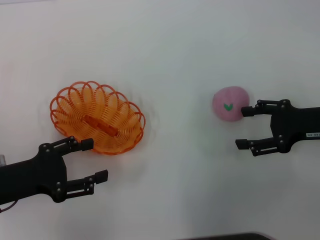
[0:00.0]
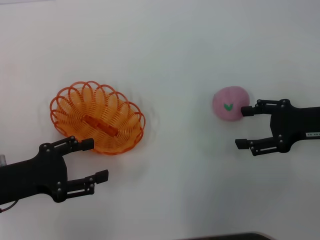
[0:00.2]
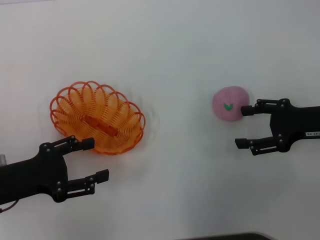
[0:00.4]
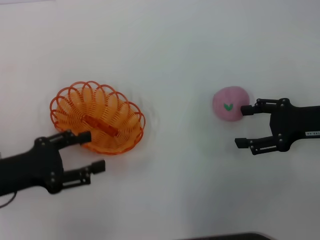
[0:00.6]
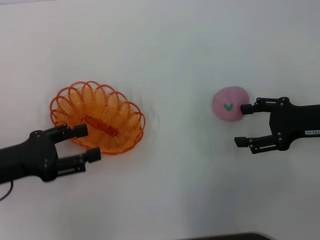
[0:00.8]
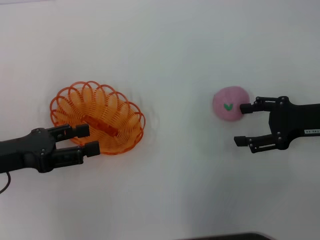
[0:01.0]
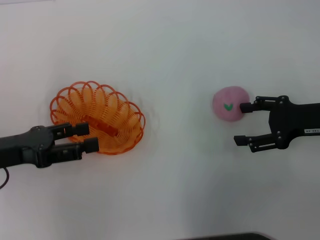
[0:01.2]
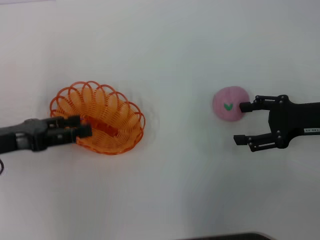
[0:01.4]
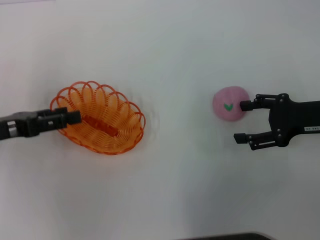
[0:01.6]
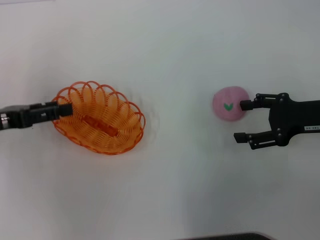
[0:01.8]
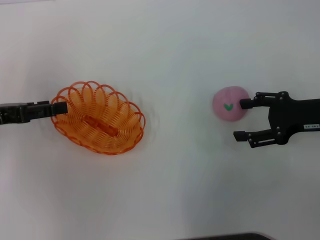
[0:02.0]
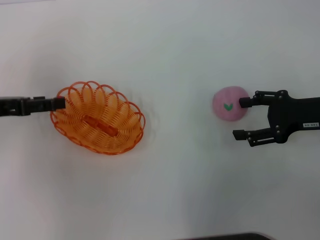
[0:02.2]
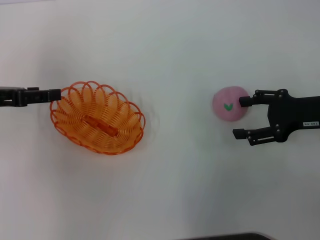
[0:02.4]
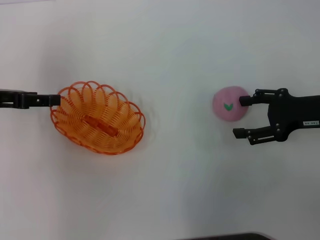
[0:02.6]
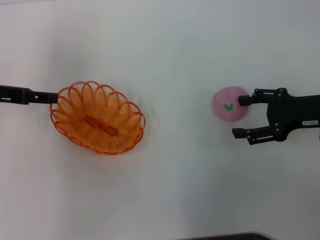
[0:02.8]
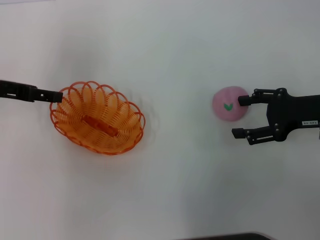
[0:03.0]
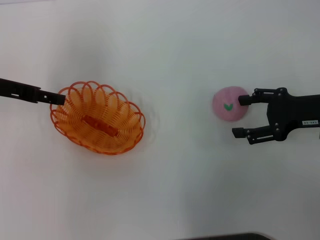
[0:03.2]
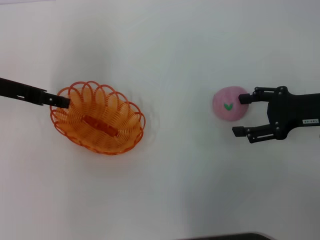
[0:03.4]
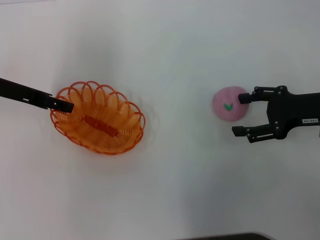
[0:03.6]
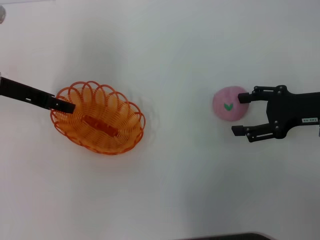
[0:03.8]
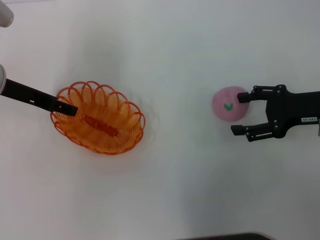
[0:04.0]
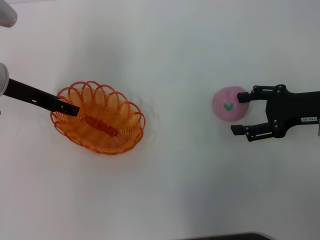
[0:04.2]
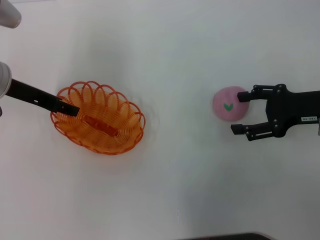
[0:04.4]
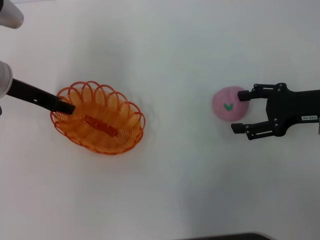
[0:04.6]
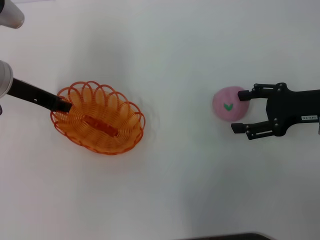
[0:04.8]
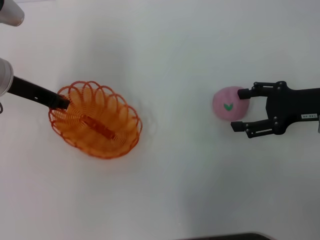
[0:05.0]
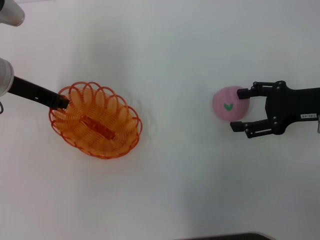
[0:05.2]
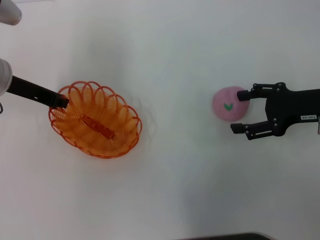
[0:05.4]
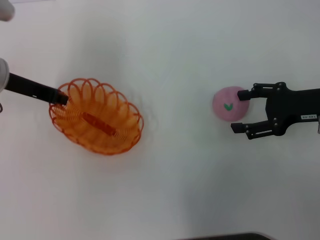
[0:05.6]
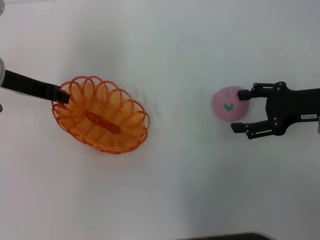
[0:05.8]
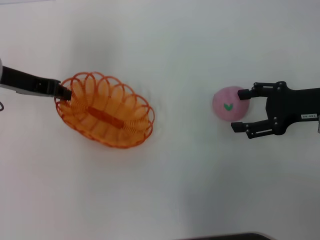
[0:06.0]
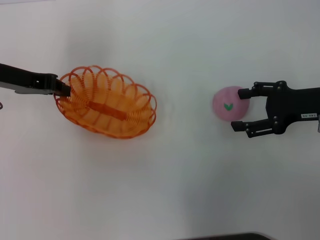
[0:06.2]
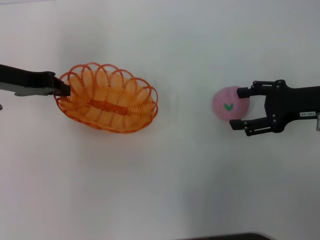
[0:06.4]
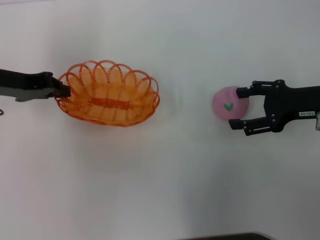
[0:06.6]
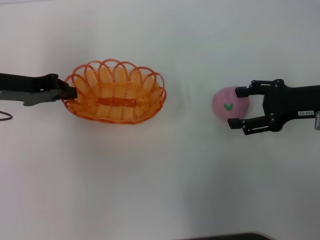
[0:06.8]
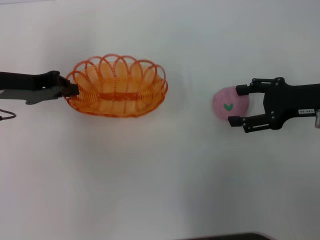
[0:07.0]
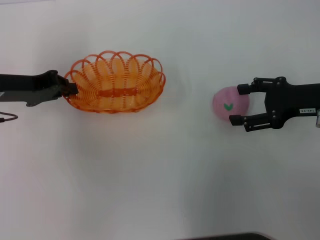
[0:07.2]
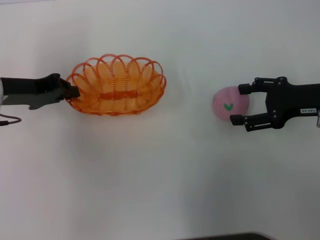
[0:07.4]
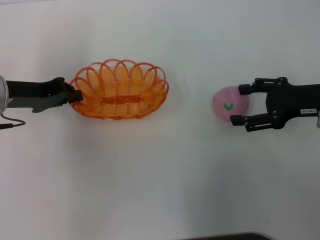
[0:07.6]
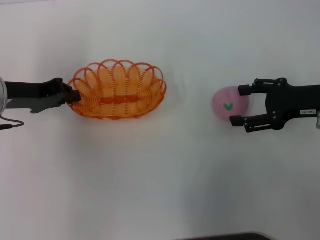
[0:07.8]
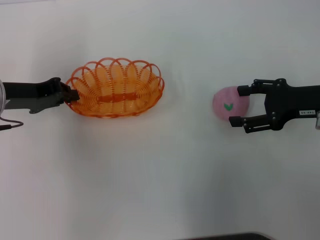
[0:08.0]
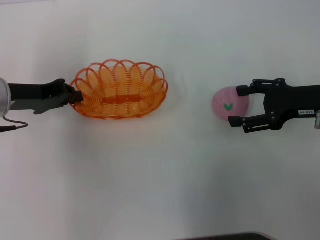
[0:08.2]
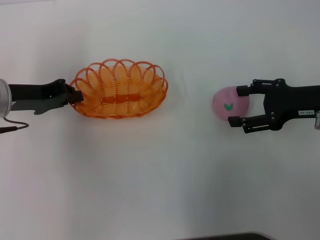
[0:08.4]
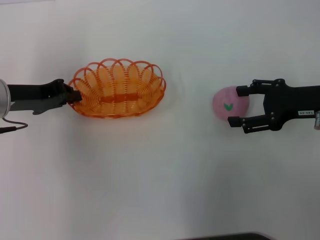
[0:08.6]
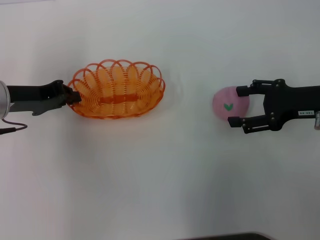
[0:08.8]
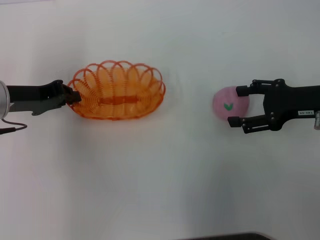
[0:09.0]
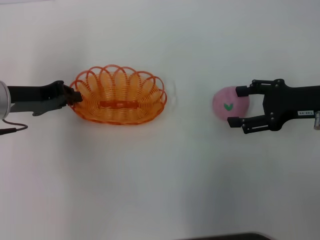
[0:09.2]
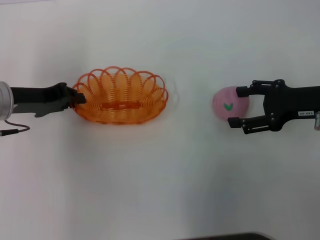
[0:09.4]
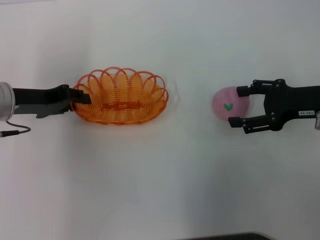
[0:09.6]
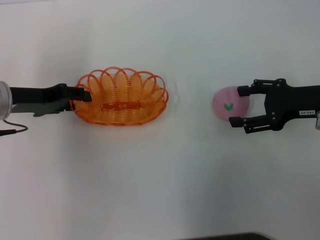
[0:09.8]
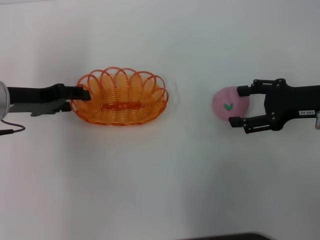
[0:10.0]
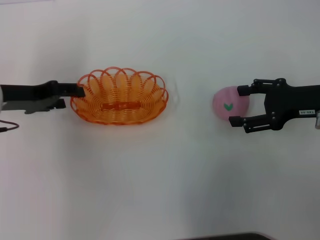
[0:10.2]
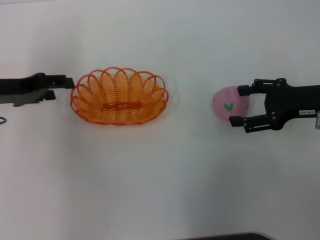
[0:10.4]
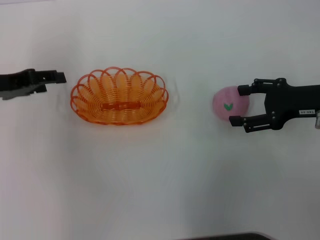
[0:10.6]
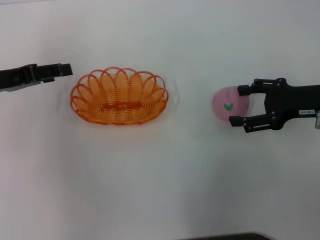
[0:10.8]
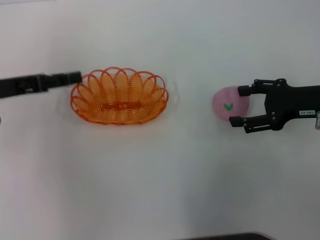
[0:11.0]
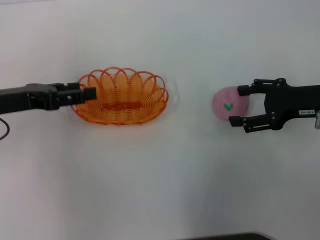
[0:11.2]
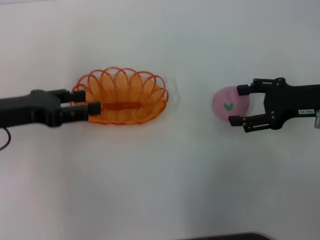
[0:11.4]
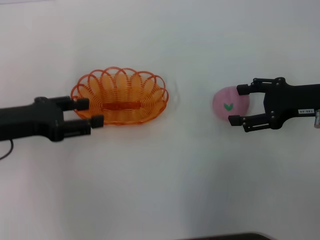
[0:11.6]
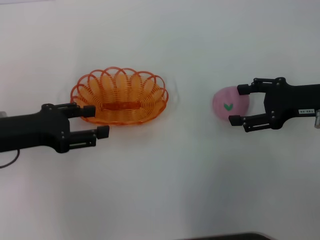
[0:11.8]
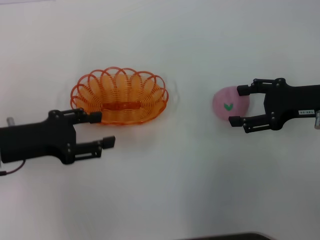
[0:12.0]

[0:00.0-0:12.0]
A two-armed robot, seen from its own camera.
Step, 0:00.0 to 0:06.4: Pick up the basket with the left gripper.
Step, 0:06.6 to 0:11.8: Place the basket in the center of view with the left gripper.
0:00.0 to 0:01.6: The left gripper heads forward, covering approximately 5 cm.
0:01.6 to 0:03.0: The left gripper shifts about 10 cm forward.
0:03.0 to 0:04.4: The left gripper moves about 5 cm.
0:04.4 to 0:06.0: The left gripper closes up.
0:07.6 to 0:09.0: The two grippers keep their place.
0:09.0 to 0:10.4: The left gripper opens.
0:10.4 to 0:12.0: The left gripper moves backward, some 5 cm.

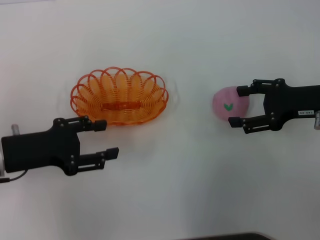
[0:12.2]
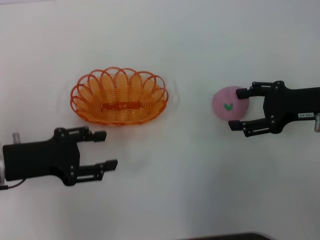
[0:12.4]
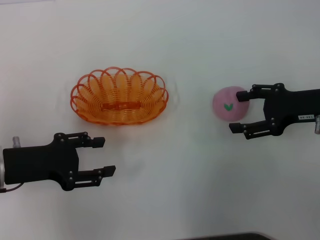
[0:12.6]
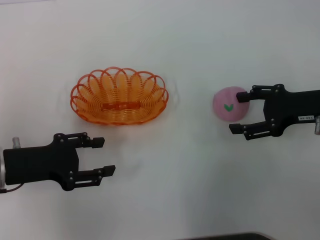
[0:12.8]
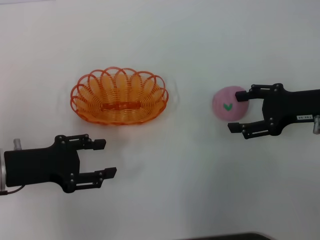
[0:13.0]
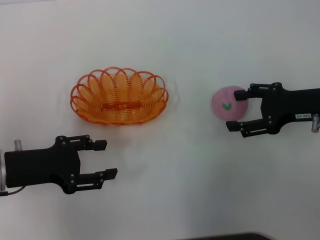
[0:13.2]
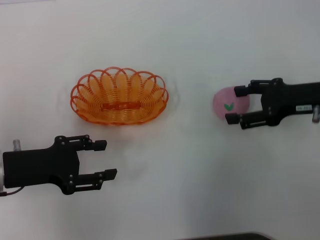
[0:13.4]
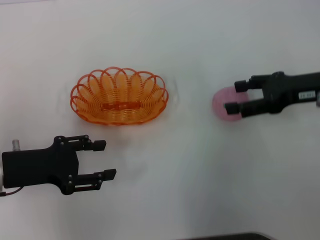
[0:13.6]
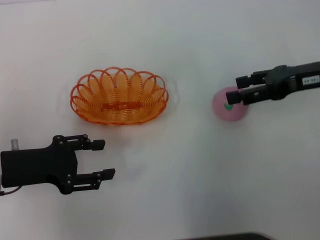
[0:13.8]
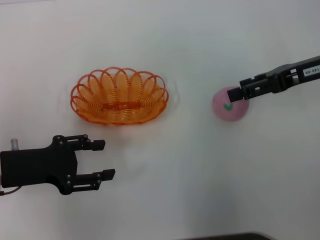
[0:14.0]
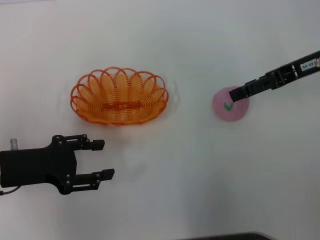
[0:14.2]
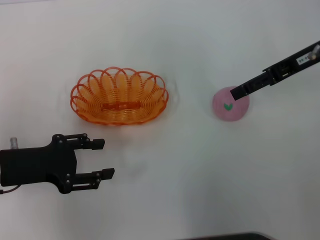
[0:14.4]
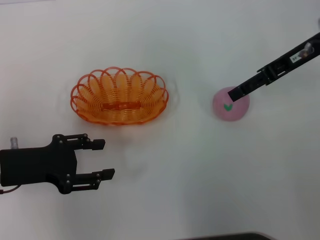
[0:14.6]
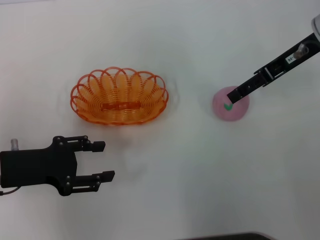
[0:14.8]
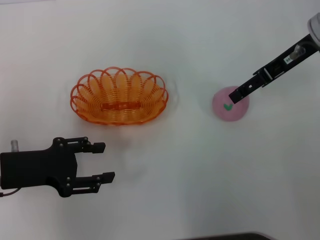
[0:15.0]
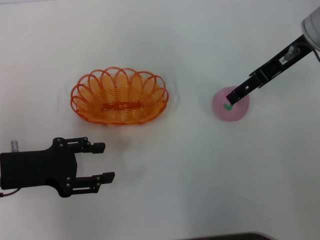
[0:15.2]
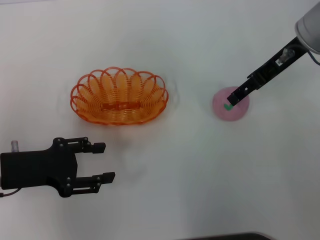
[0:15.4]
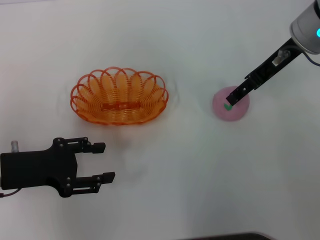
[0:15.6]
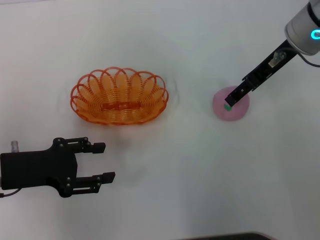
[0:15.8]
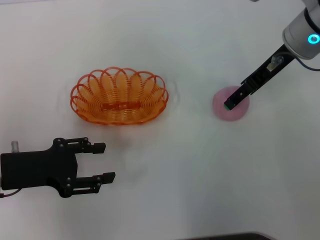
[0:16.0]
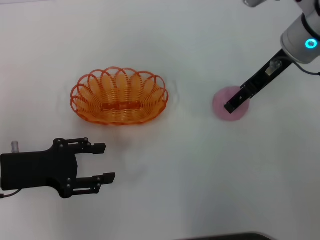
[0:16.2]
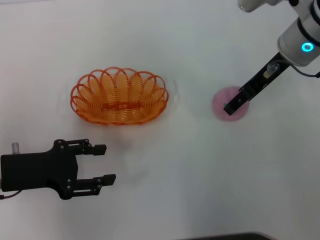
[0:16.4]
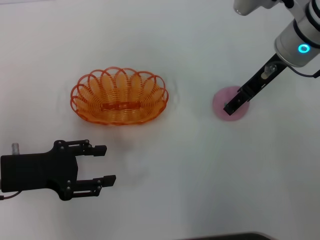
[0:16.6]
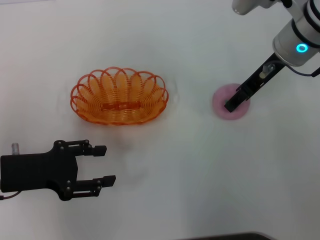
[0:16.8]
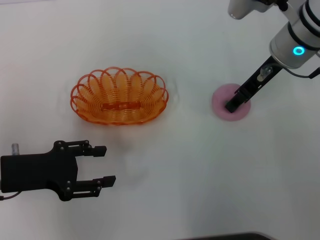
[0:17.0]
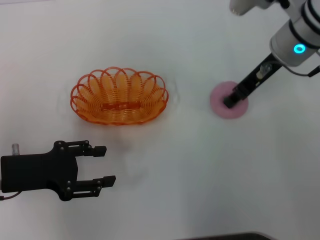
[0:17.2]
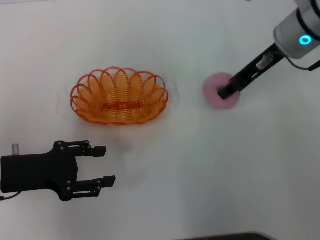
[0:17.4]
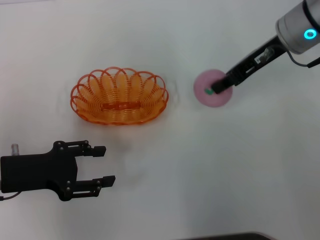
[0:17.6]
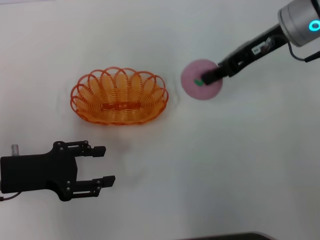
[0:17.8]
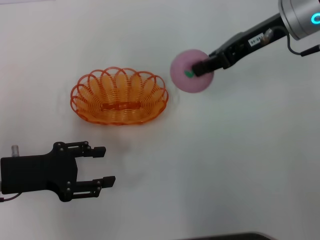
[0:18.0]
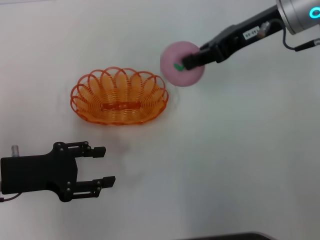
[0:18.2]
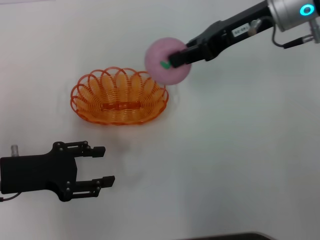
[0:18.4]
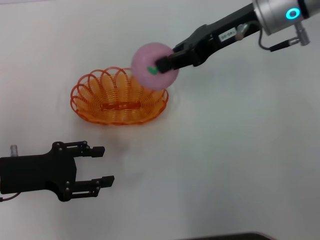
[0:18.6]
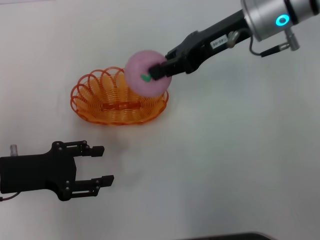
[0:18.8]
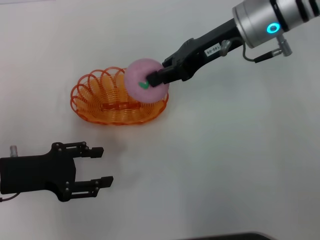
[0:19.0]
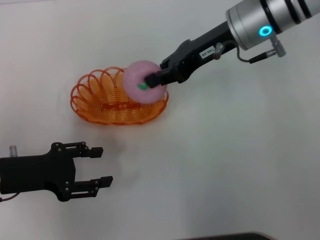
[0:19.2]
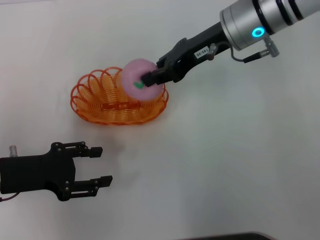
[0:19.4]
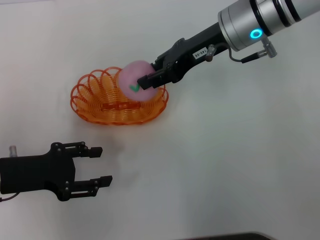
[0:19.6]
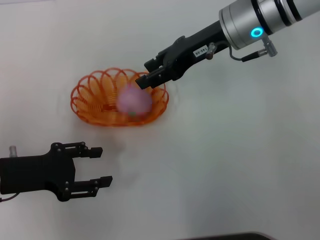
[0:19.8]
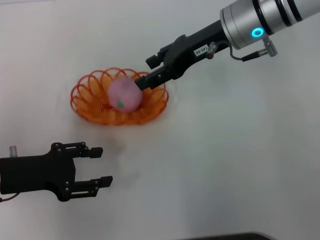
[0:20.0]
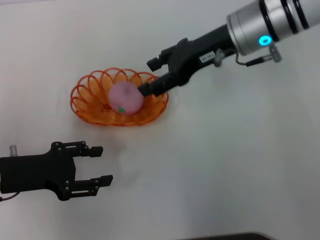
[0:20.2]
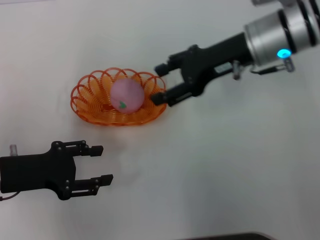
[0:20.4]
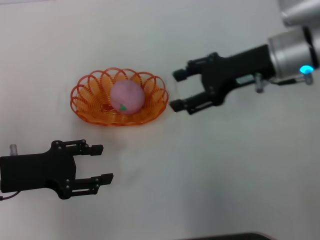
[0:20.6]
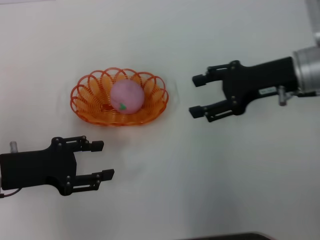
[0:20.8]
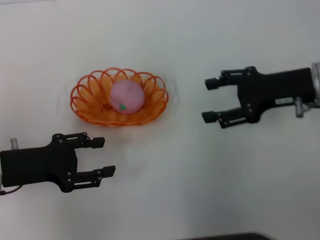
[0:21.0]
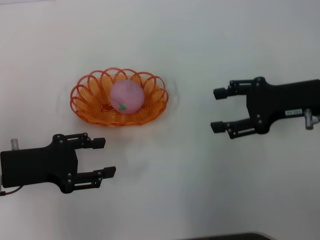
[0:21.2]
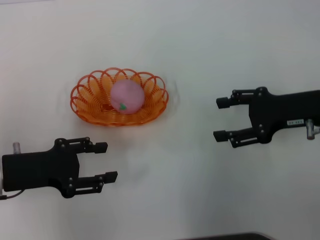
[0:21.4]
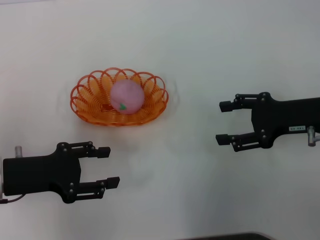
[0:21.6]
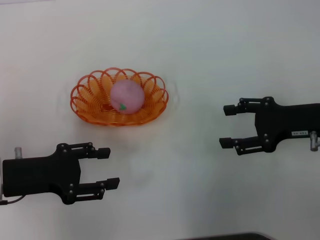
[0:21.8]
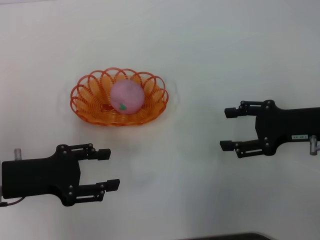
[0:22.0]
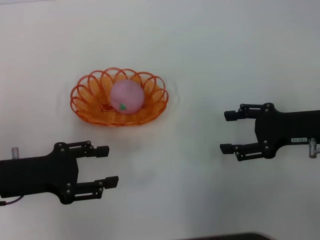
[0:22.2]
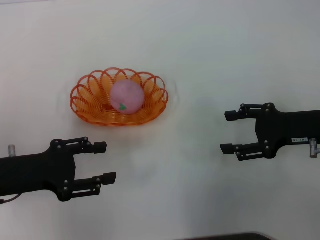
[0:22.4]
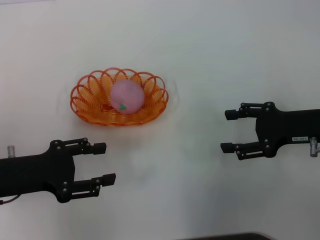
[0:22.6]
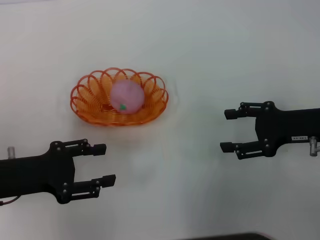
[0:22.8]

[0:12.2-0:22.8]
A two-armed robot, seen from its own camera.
Step, 0:12.2 to 0:18.0: Pick up the peach with the right gripper.
Step, 0:18.2 to 0:20.4: Place the peach into the basket with the right gripper.
0:12.2 to 0:13.8: The right gripper ends up roughly 5 cm from where it was.
0:13.8 to 0:15.2: The right gripper goes about 10 cm to the left and forward.
0:15.2 to 0:16.8: The grippers make only small movements.
0:16.8 to 0:18.2: The right gripper closes.
0:18.2 to 0:19.8: The right gripper goes some 5 cm to the left, and opens up.
0:19.8 to 0:21.2: The right gripper travels to the right, backward and downward by about 15 cm, and opens.
0:21.2 to 0:22.8: The grippers stay close to where they were, moving slightly.
